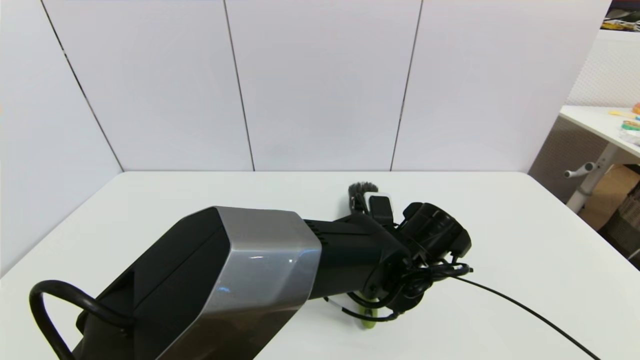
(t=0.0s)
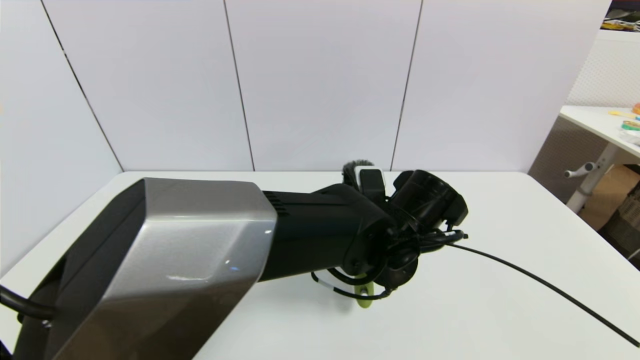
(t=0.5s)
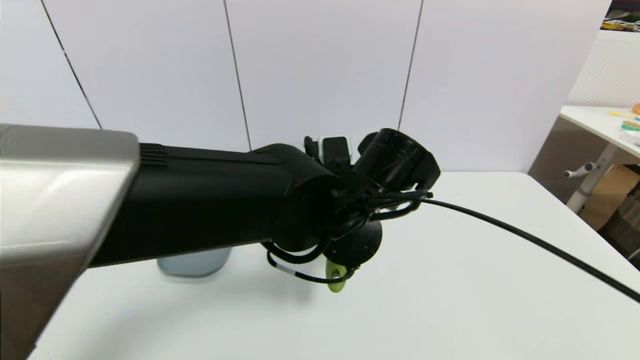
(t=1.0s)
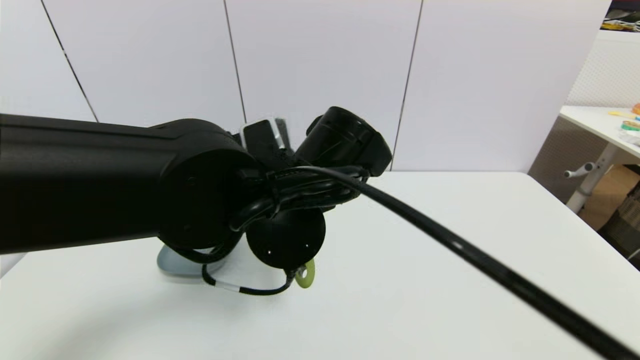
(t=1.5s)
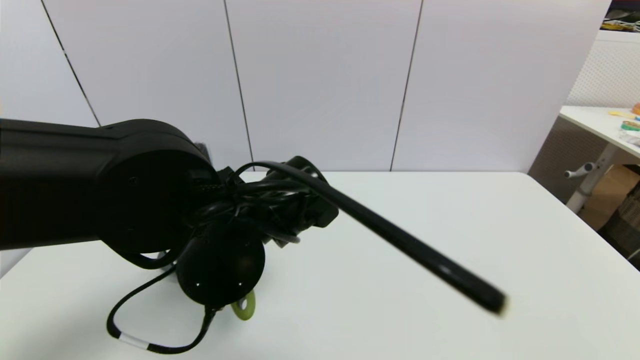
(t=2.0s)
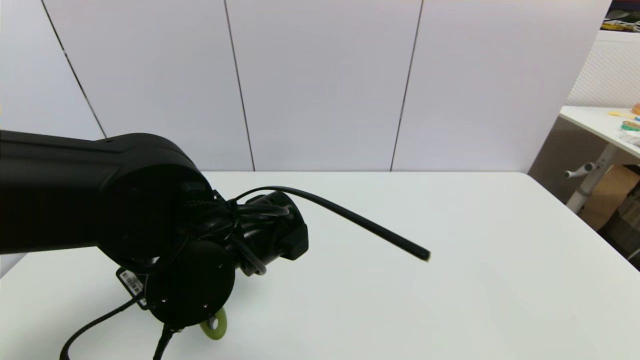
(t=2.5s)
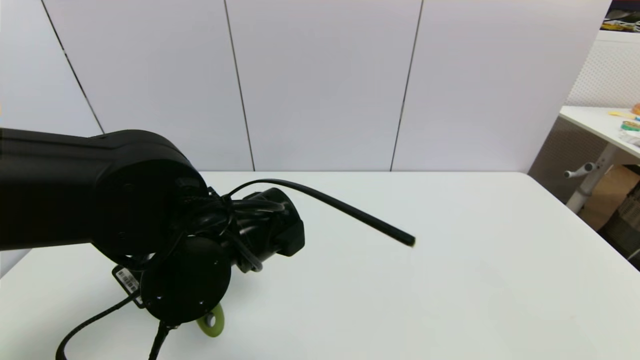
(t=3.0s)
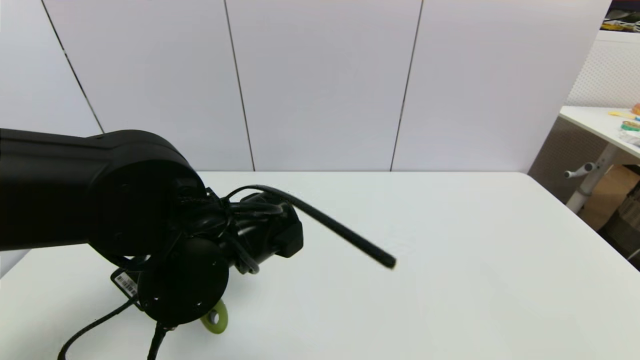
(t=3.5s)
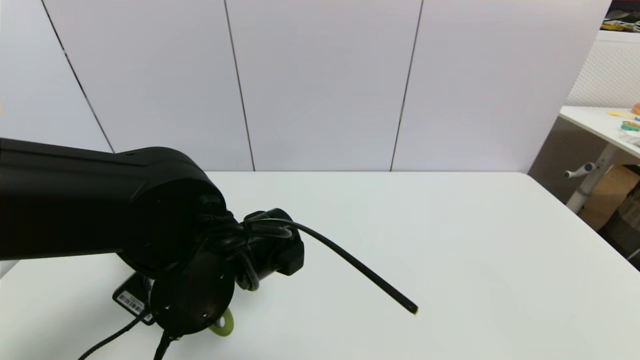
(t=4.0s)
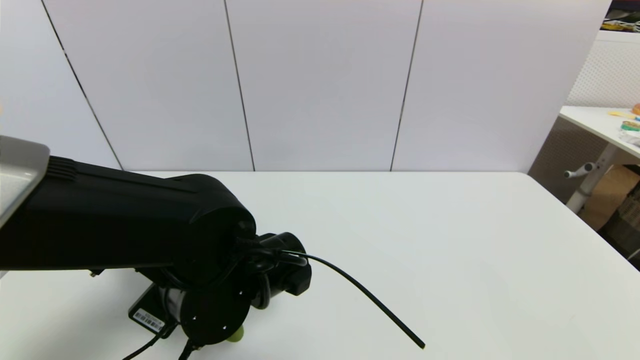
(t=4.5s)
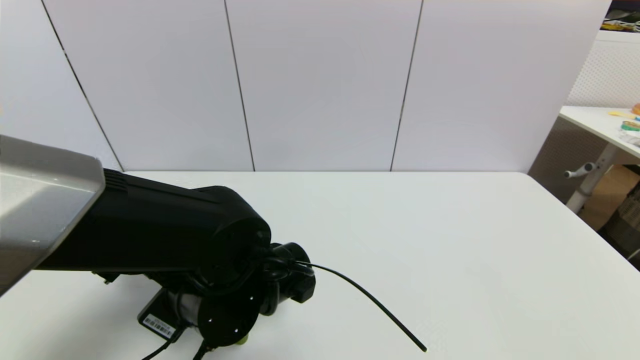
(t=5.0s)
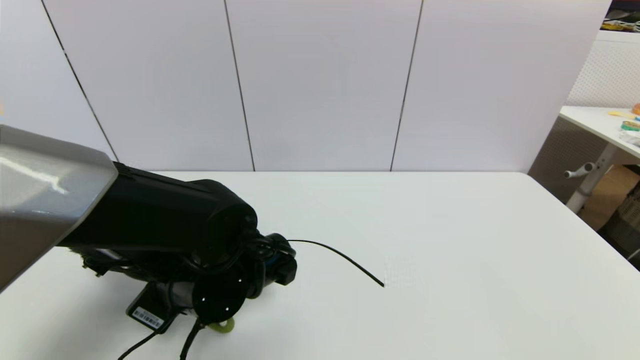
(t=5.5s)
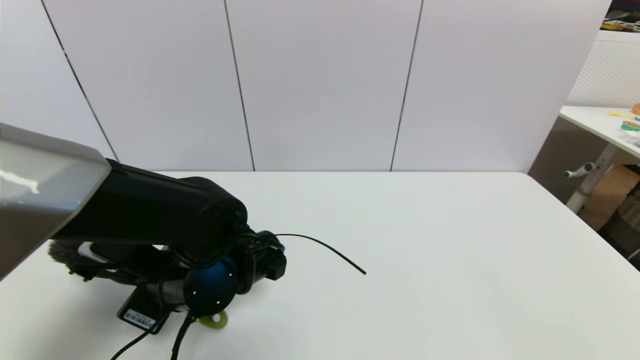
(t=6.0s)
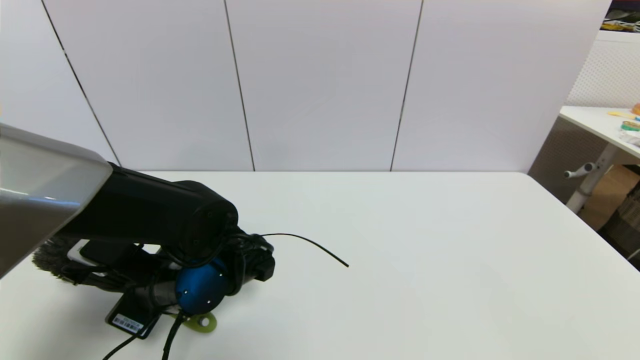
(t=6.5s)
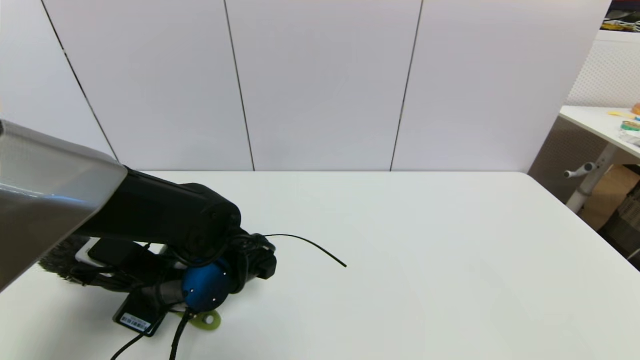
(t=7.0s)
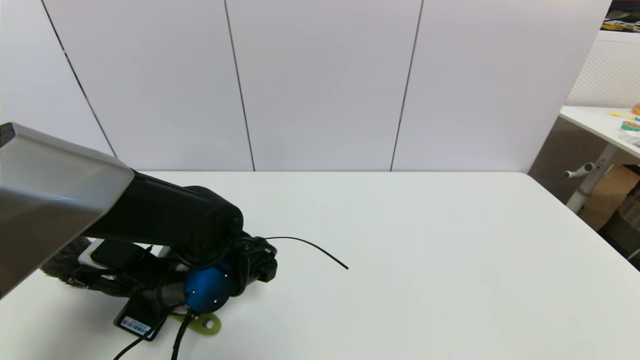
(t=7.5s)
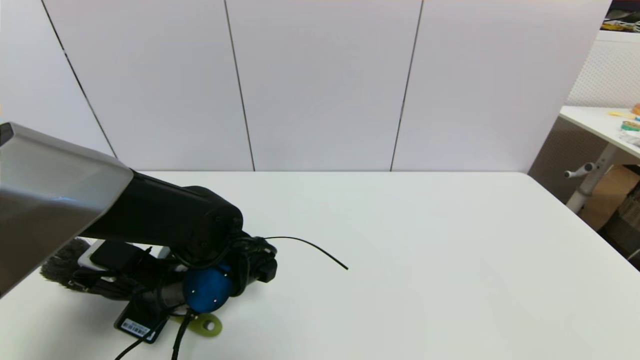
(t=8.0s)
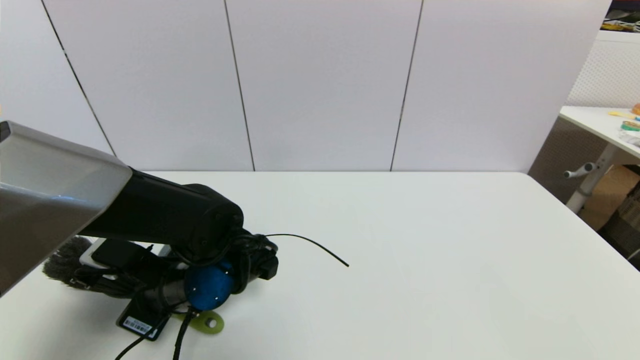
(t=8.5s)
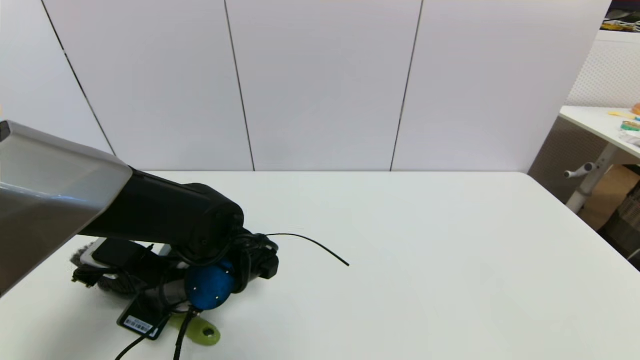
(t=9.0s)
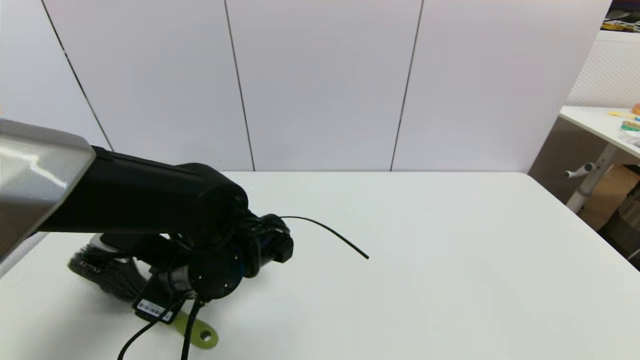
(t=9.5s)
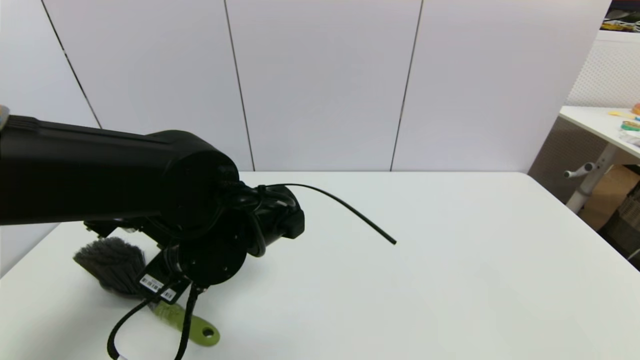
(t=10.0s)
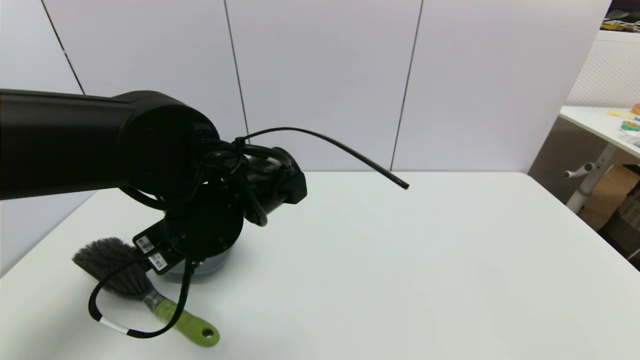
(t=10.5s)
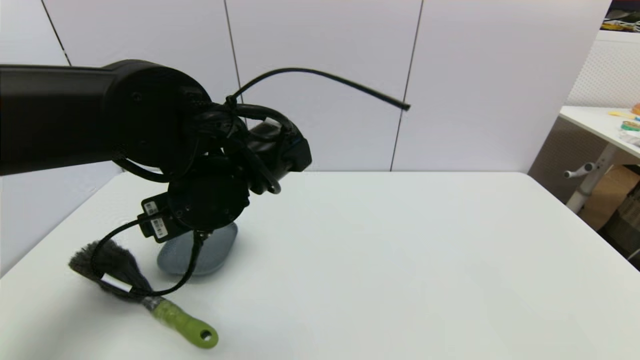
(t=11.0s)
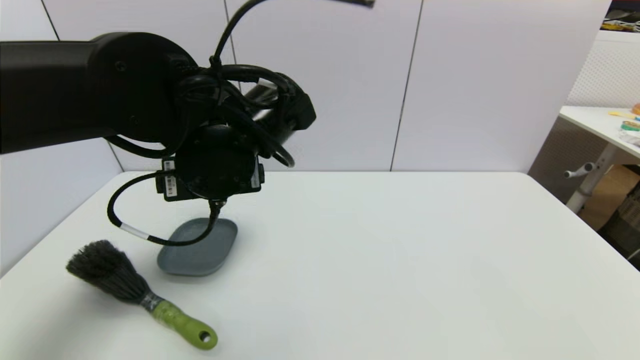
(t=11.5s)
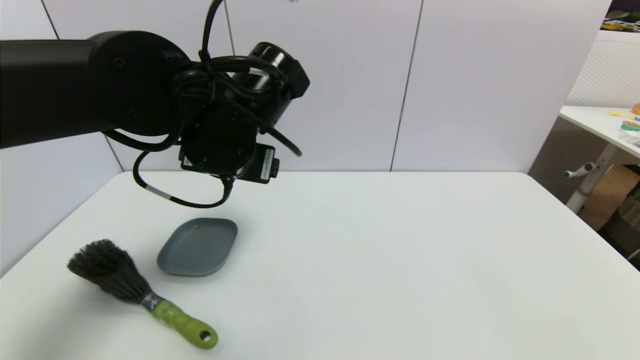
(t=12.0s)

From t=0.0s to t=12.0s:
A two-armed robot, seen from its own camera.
Task of the whole recording: put the brush in the designated position.
Step, from t=0.5s to t=8.5s: Place the brush on the table with left gripper.
From t=0.0s to t=2.0s: The left gripper heads to the left and upward, covering about 20 cm.
From t=4.0s to t=6.0s: The left gripper goes roughly 5 cm downward.
From t=6.0s to t=8.0s: The grippers move only a little.
From t=8.0s to t=10.0s: The left gripper travels upward by about 10 cm, and opens.
From t=10.0s to t=12.0s: The left gripper travels upward by approximately 10 cm.

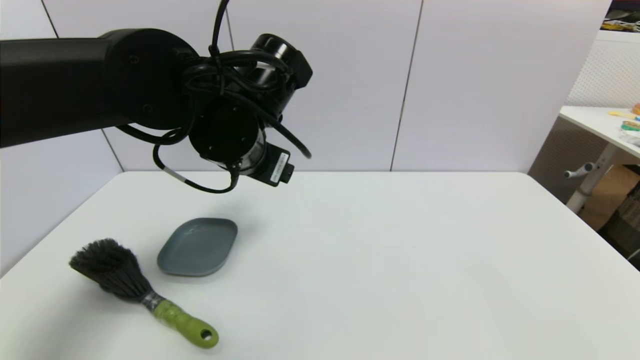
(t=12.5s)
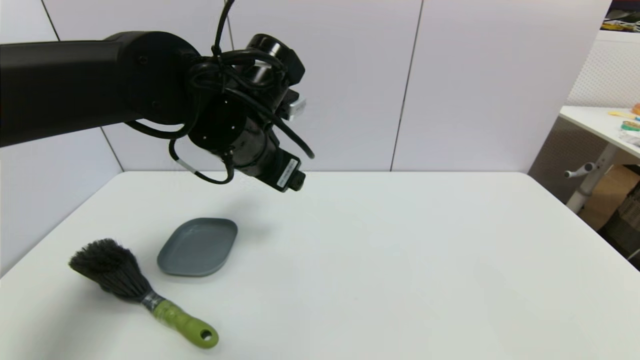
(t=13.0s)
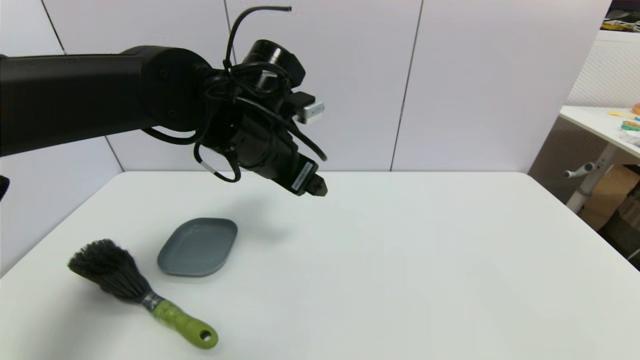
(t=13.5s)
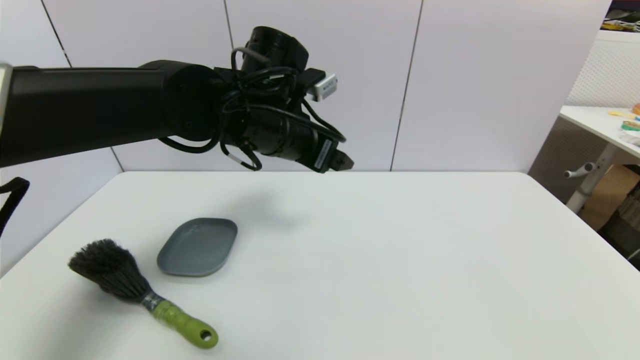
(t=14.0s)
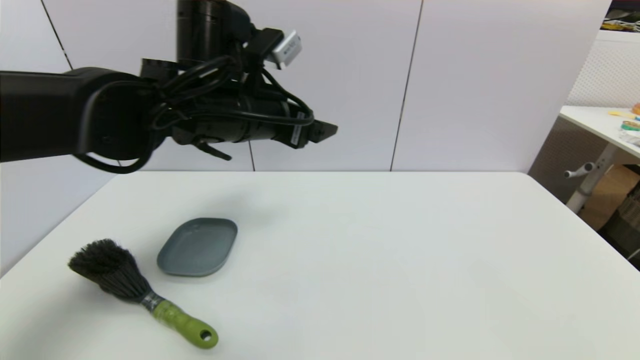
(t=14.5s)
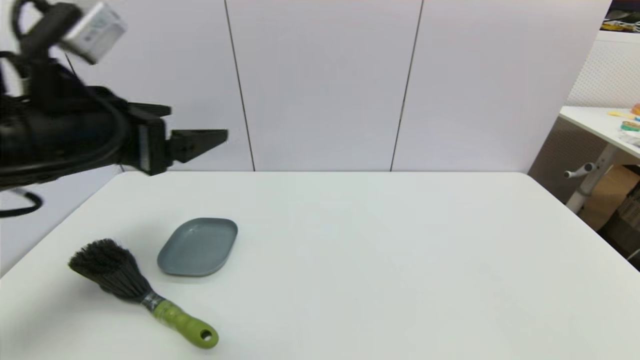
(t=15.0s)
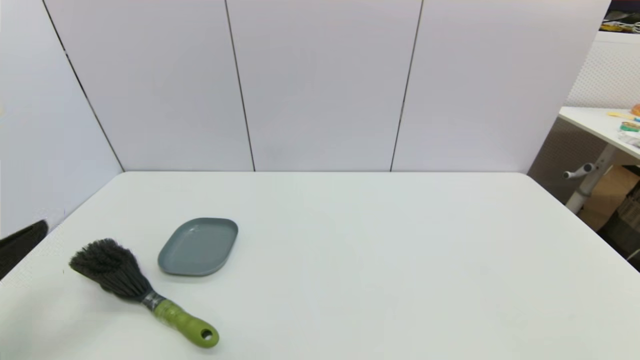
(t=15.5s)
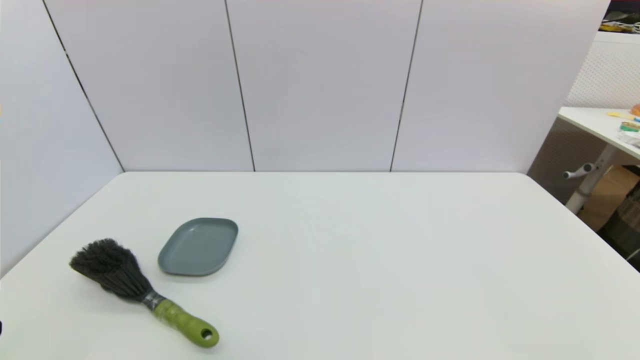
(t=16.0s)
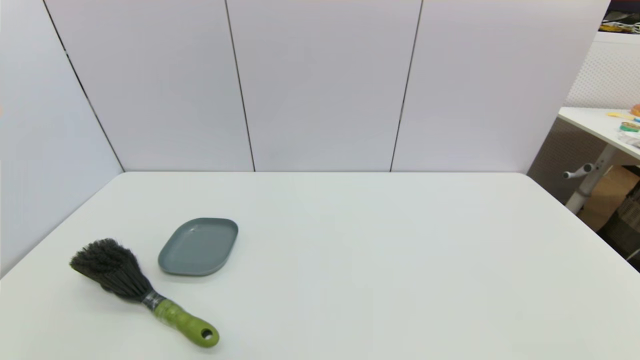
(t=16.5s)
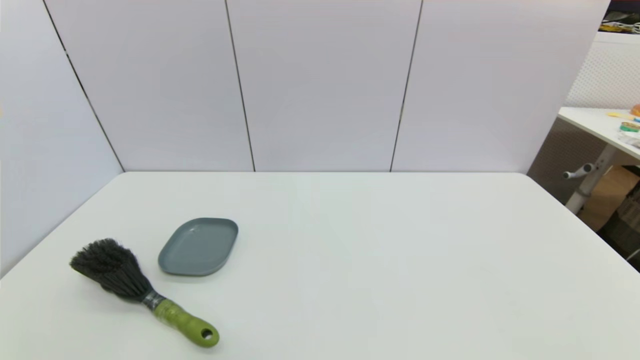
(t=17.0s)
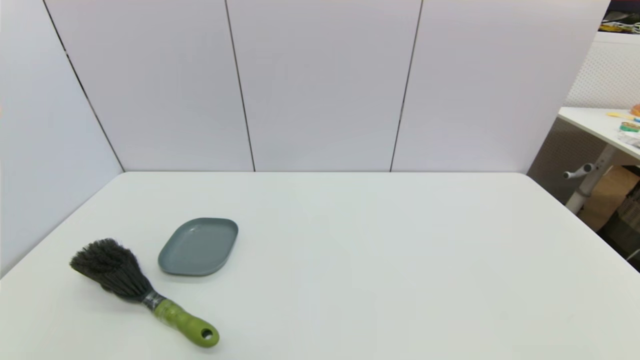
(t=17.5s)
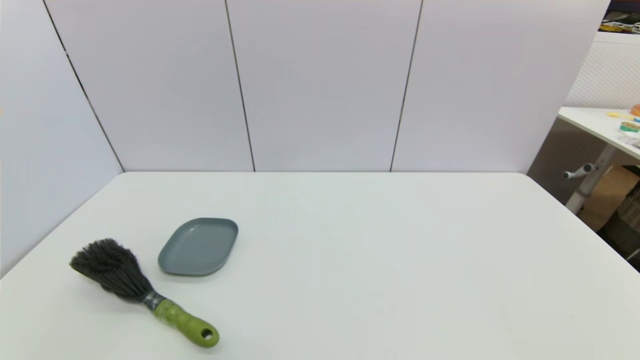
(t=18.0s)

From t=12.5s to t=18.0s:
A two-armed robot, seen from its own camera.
Task of the whole recording: put the brush in the designated position.
From t=14.5s to t=16.0s: The left gripper shifts some 40 cm backward, to the left and downward.
